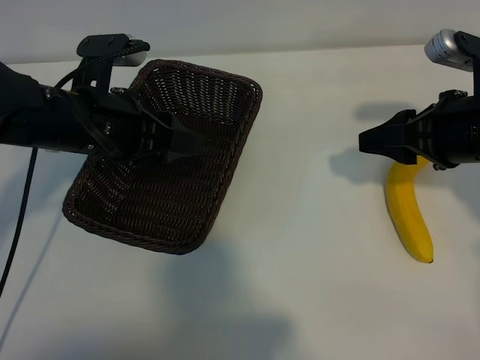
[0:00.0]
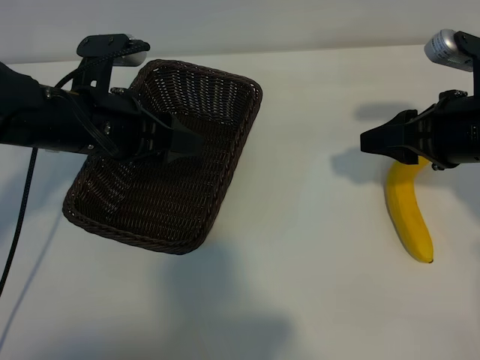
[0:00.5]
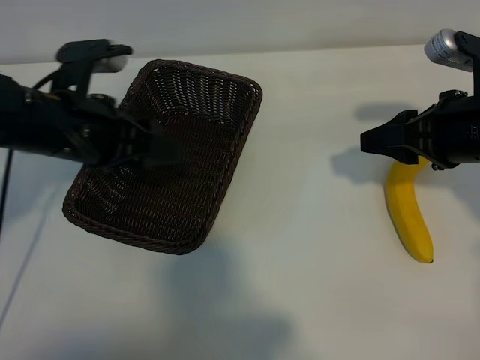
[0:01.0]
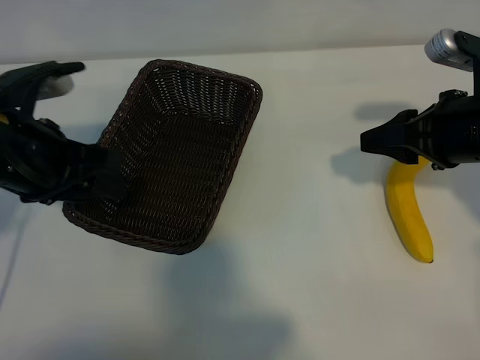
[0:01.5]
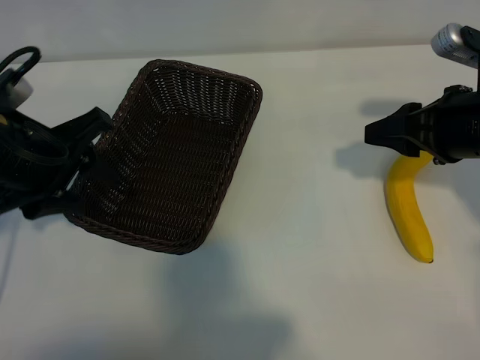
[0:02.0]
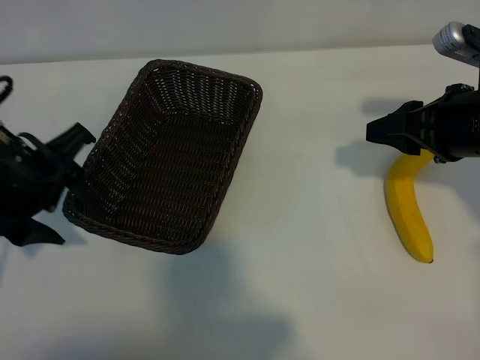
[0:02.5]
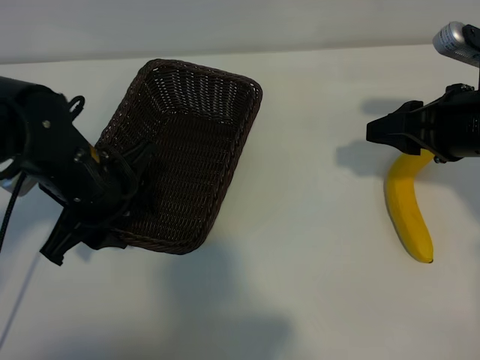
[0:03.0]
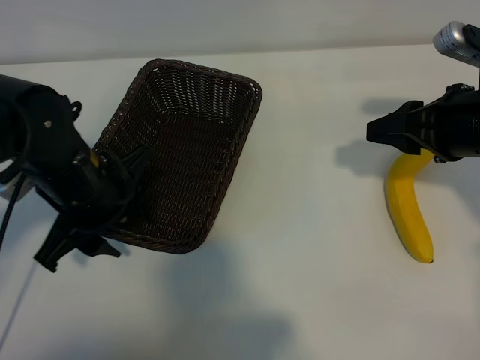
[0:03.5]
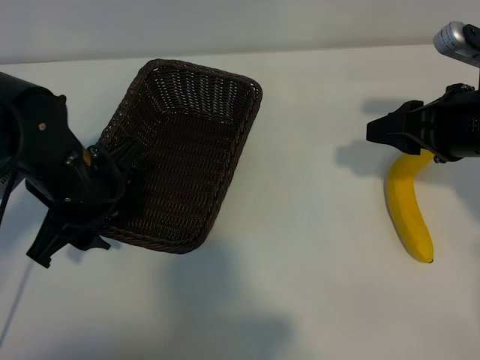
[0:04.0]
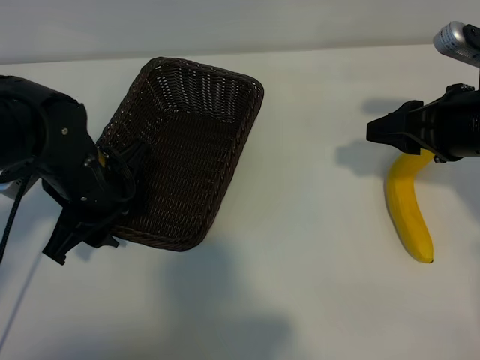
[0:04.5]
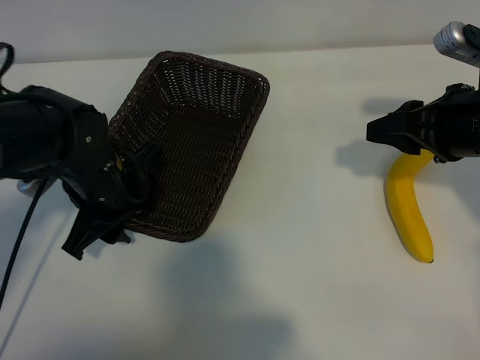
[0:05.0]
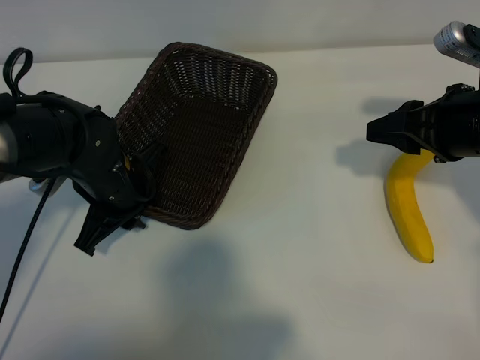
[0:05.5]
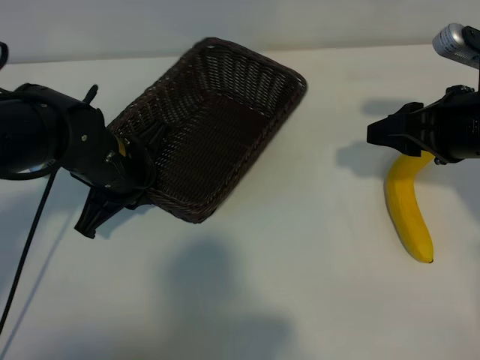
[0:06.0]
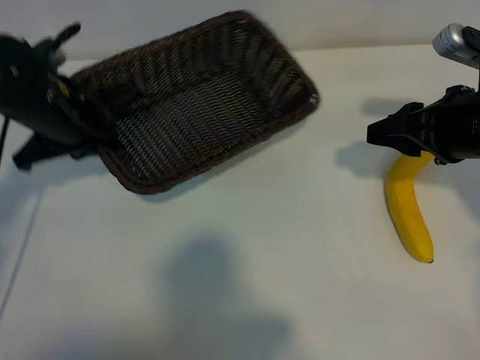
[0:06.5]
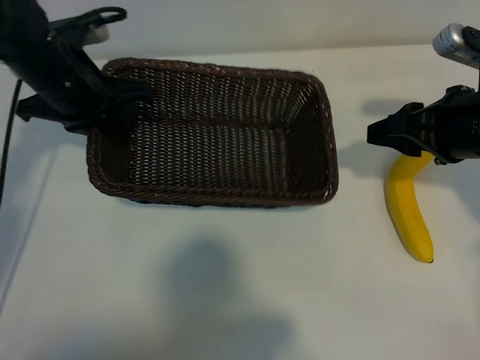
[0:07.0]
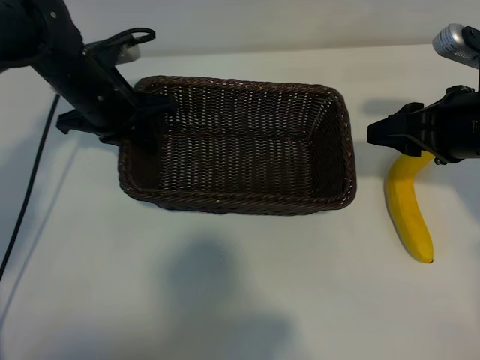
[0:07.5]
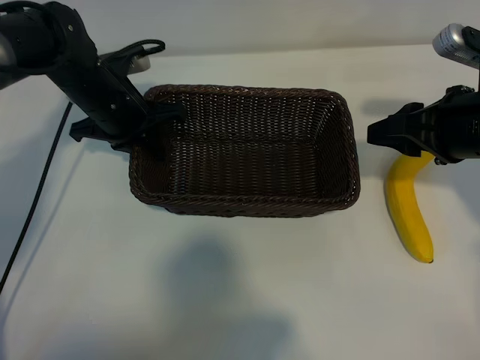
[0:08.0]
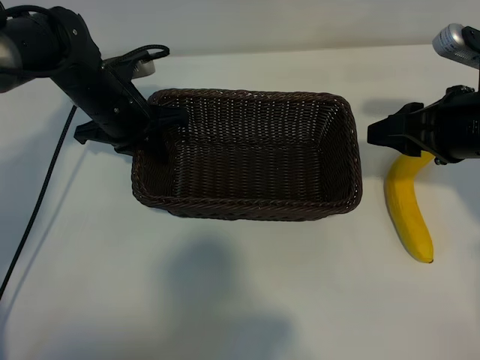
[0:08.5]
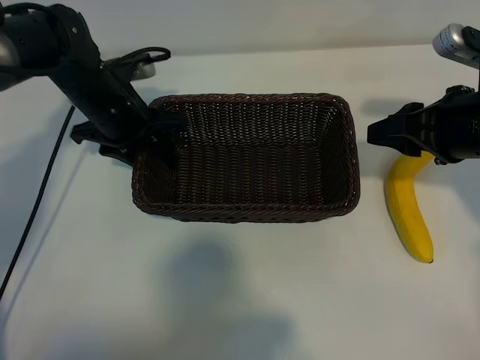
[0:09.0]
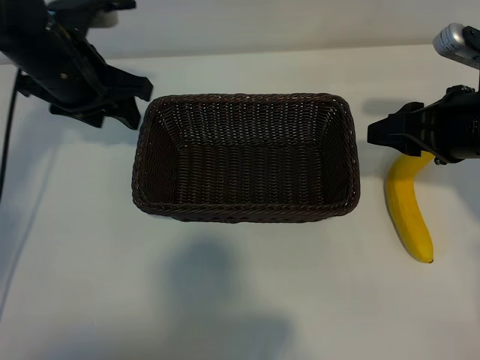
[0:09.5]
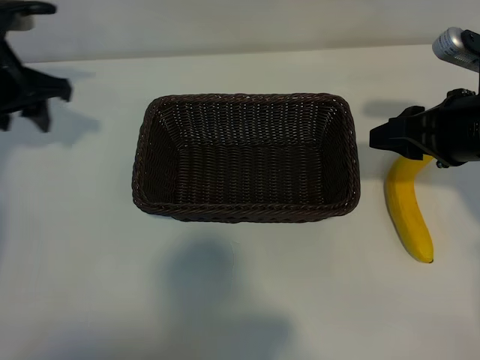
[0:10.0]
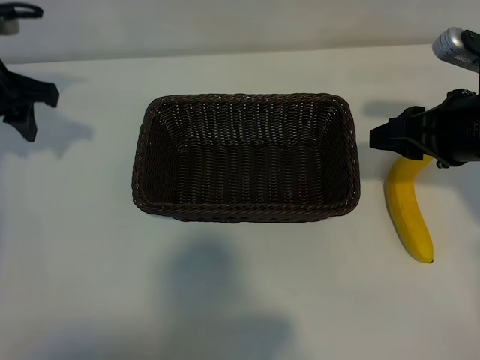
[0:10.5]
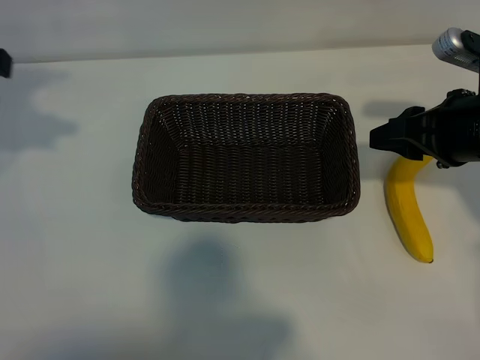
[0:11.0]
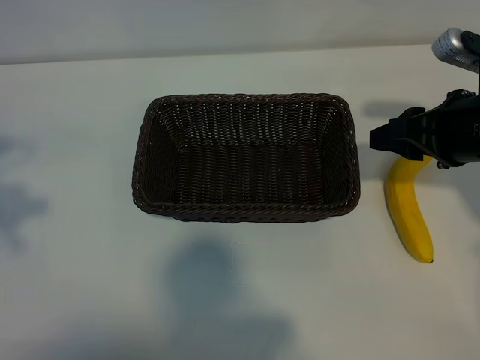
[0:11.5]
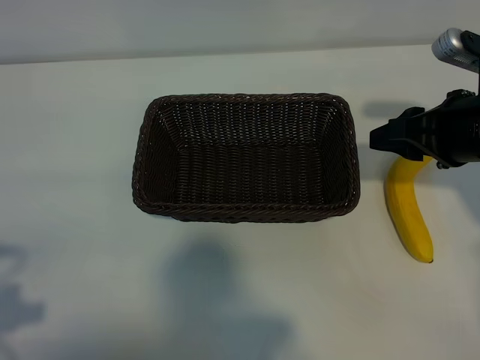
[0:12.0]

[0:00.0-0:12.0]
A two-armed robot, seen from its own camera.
Task of the whole recording: pick up the banana and put it into the basket.
Step, 0:00.0 to 0:06.0: Grasp the basket with the left gripper.
Step, 0:06.5 to 0:09.0: Place the basket in the center of the table with the left gripper.

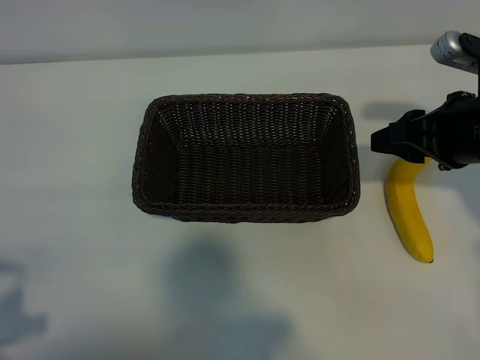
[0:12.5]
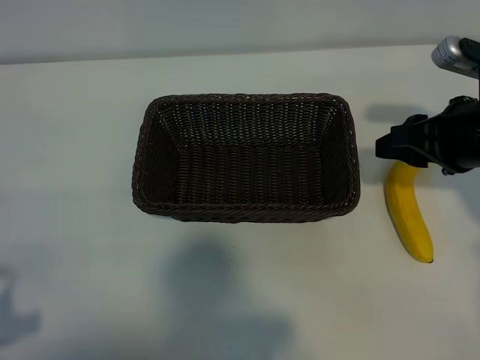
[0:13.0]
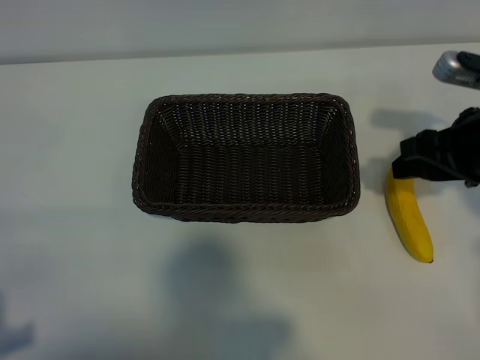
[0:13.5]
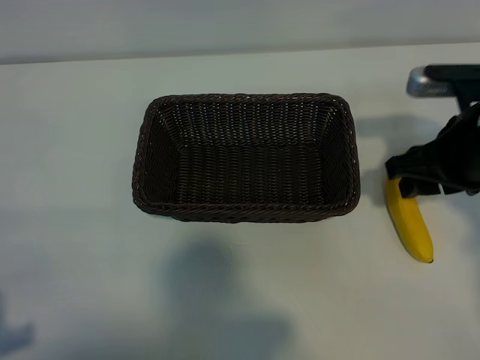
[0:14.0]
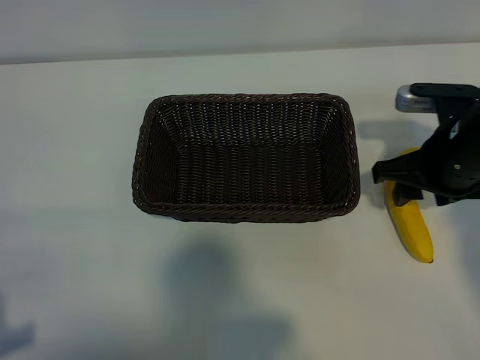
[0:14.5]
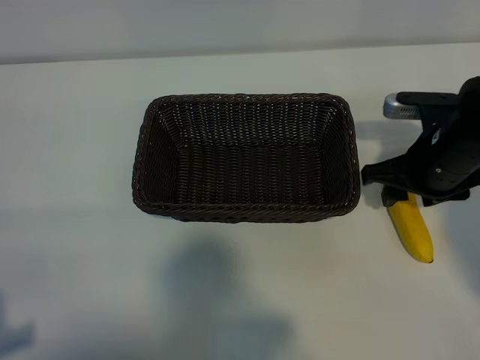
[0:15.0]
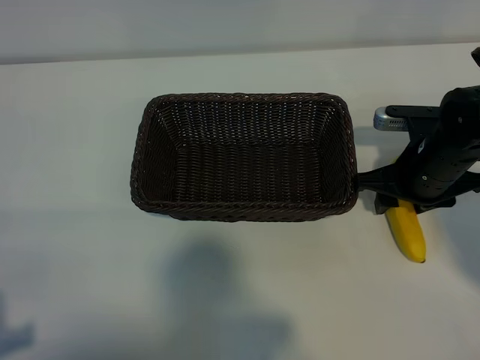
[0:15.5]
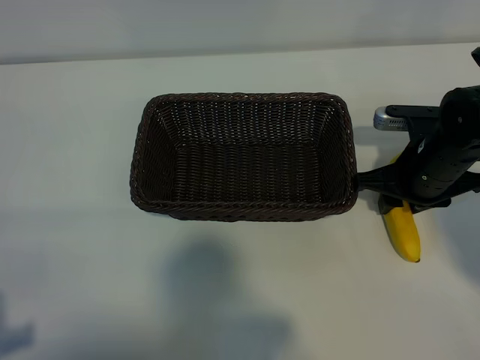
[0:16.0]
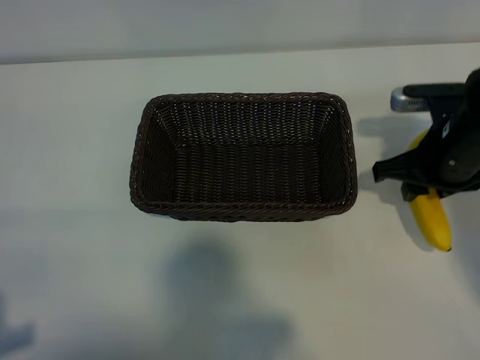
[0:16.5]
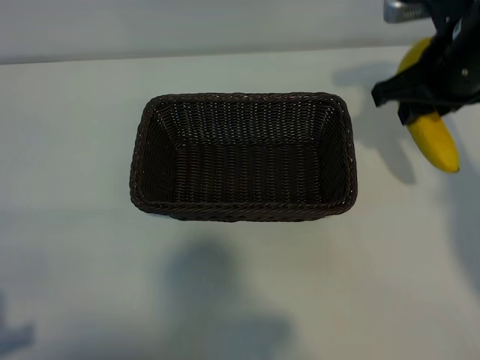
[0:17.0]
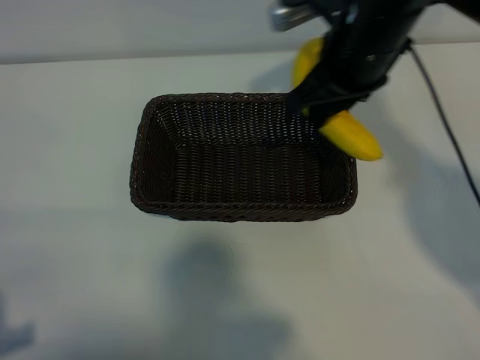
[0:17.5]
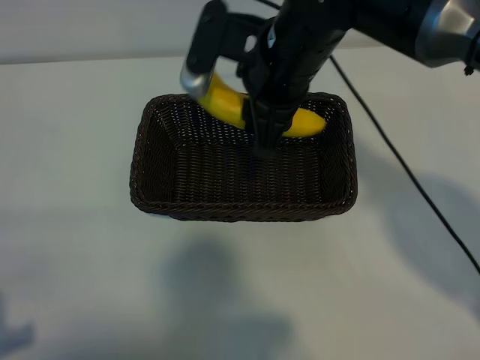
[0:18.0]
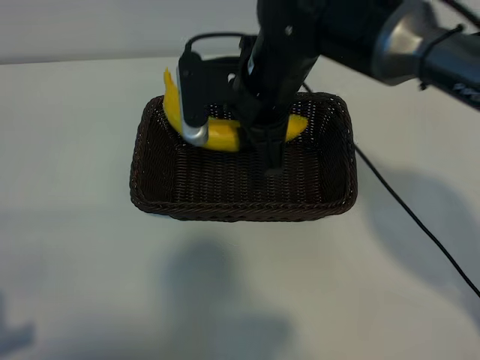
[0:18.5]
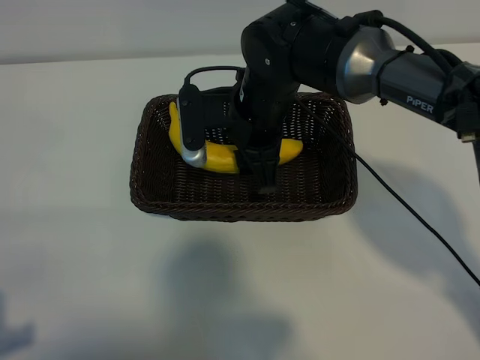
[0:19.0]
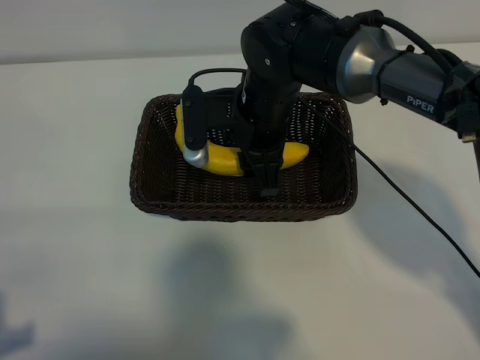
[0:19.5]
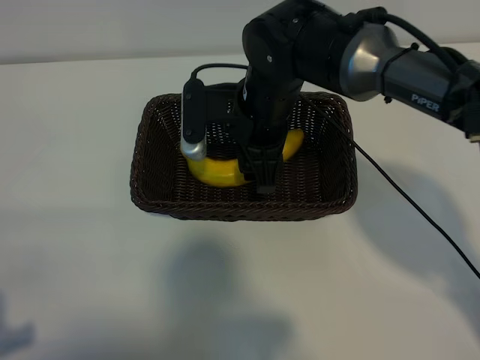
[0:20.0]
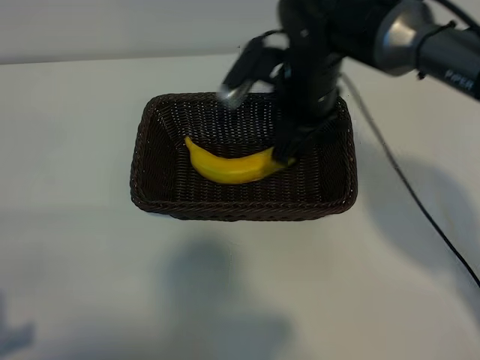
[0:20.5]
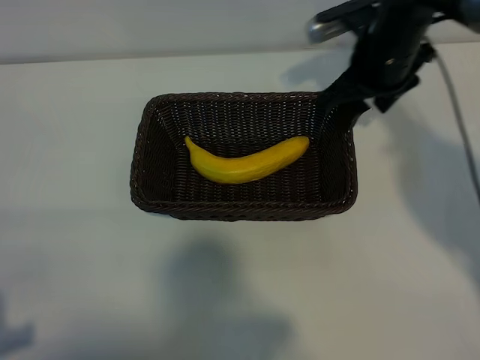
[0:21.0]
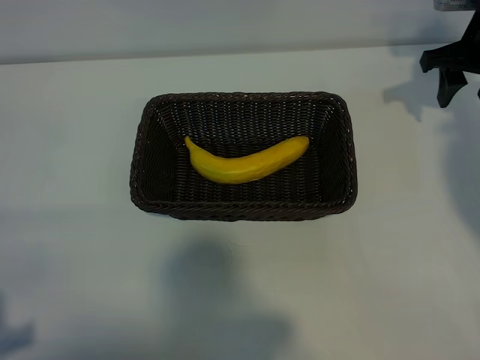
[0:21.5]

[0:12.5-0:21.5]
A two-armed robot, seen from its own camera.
Task of the whole recording: pick up the banana and put it into the basket.
Step, 0:12.5 to 0:15.5: Grasp the banana with right gripper.
Step, 0:16.5 to 0:20.5: Place the banana in the basket with right gripper.
